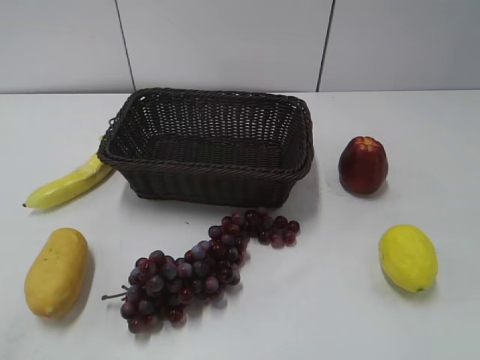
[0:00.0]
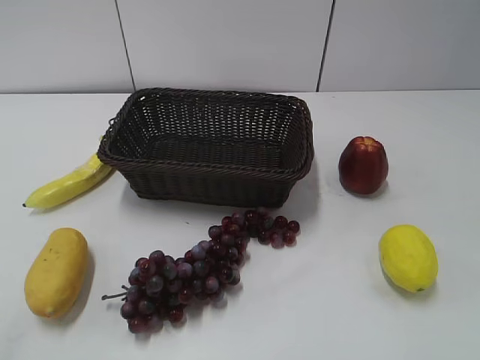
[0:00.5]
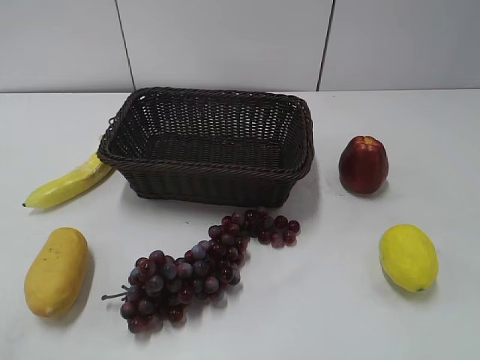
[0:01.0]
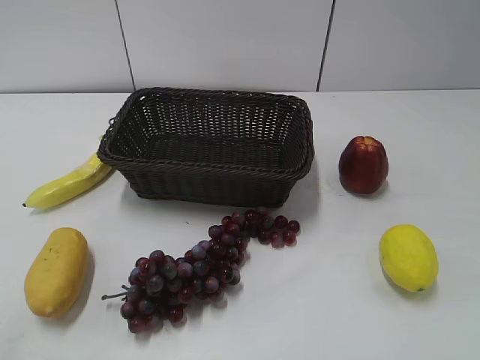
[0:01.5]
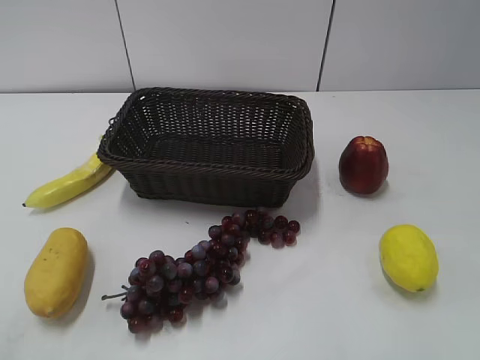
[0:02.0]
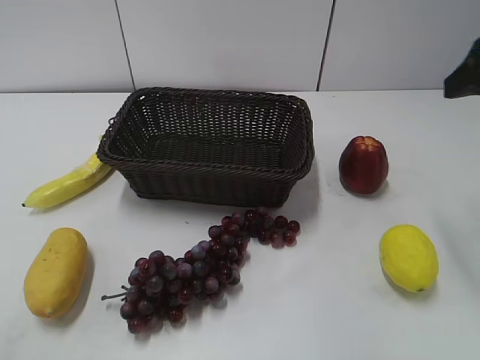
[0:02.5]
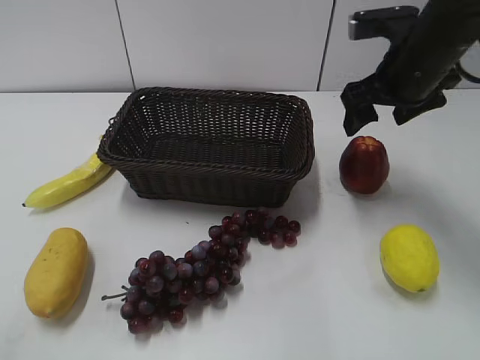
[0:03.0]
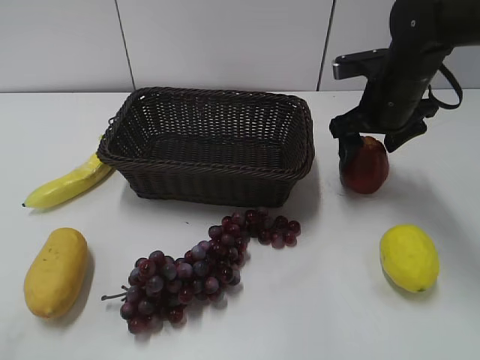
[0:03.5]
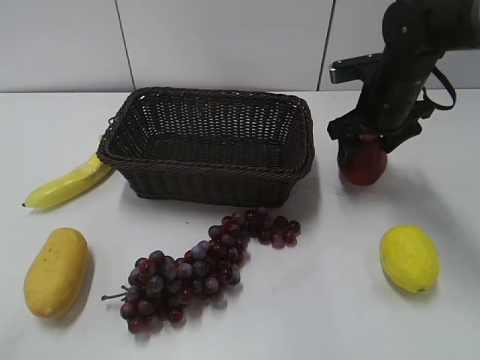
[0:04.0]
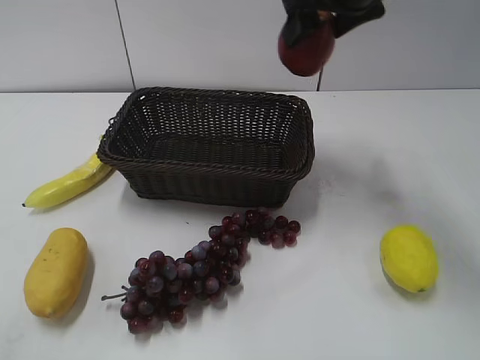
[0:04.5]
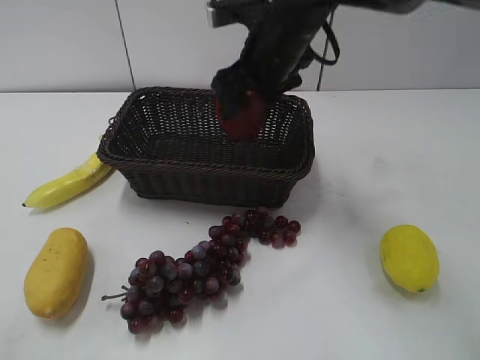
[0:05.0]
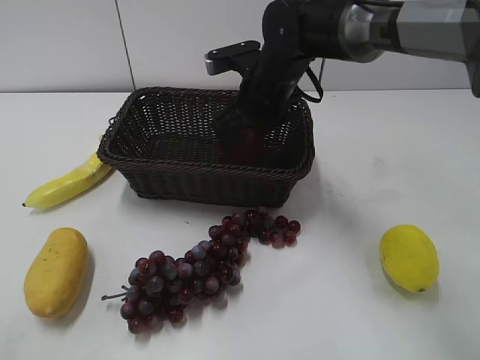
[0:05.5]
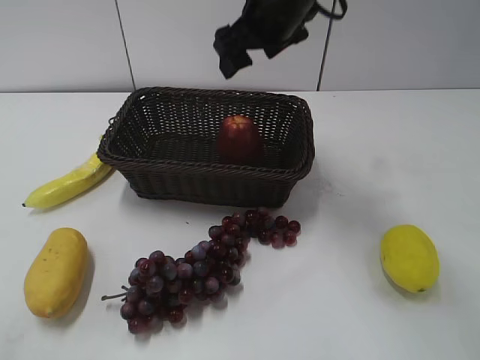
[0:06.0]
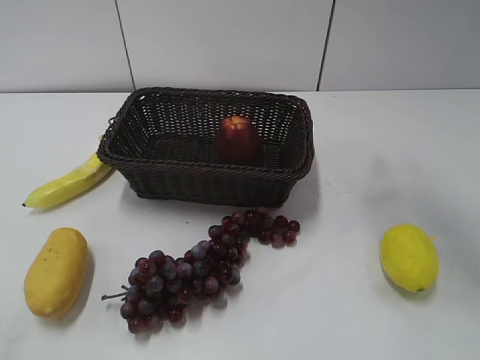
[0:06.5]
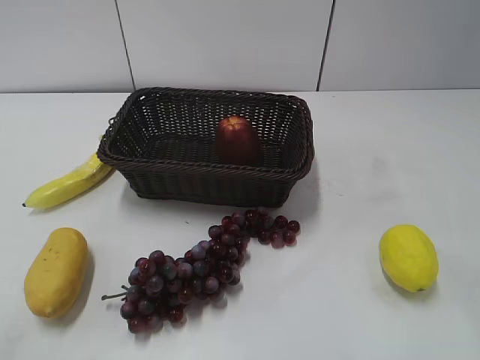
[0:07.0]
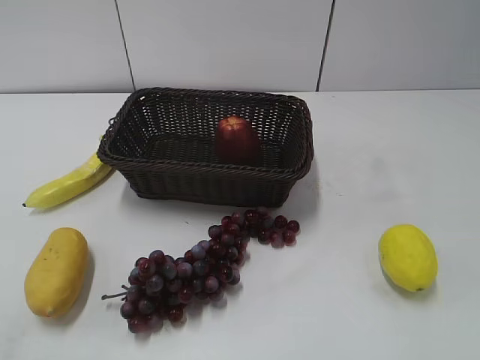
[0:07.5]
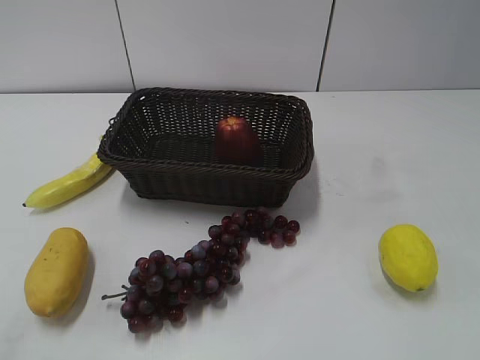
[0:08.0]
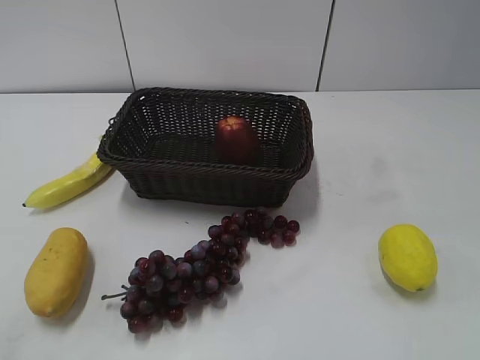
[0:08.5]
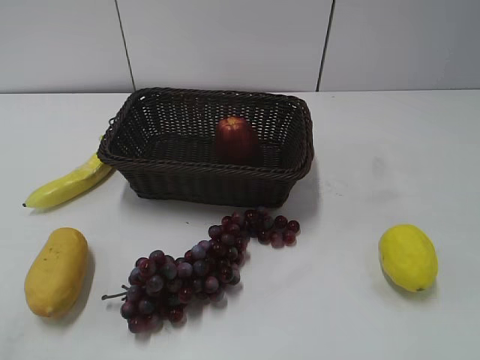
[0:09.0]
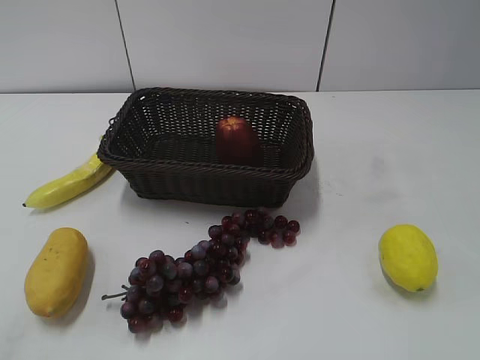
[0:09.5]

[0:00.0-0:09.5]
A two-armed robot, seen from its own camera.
Step, 0:02.5 to 0:03.5: Grasp the apple with right gripper.
Step, 0:04.0 to 0:05.5: Place the apple in the basket with right gripper.
0:02.0 to 0:04.0: The right gripper heads forward and downward, covering approximately 35 cm.
0:04.0 to 0:05.5: The right gripper heads to the left, covering roughly 15 cm, and goes upward and returns, about 15 cm each way.
0:05.5 to 0:07.5: The right gripper travels backward, to the right and upward by roughly 50 cm.
